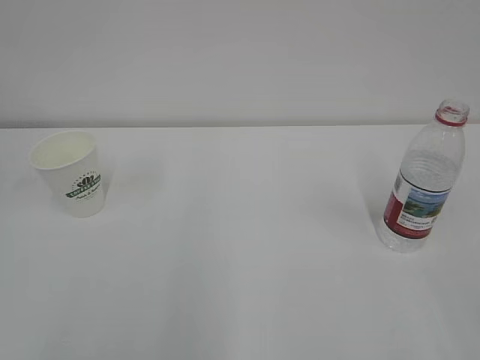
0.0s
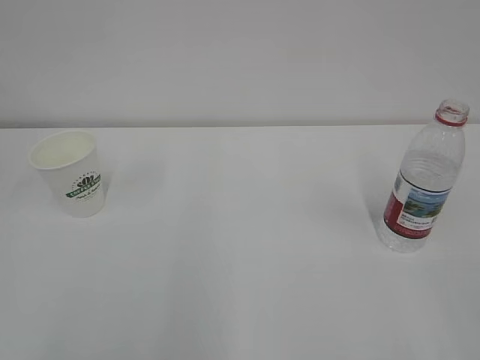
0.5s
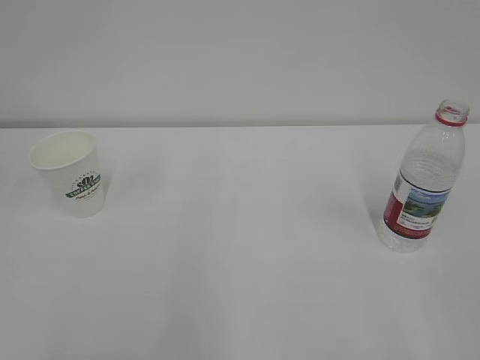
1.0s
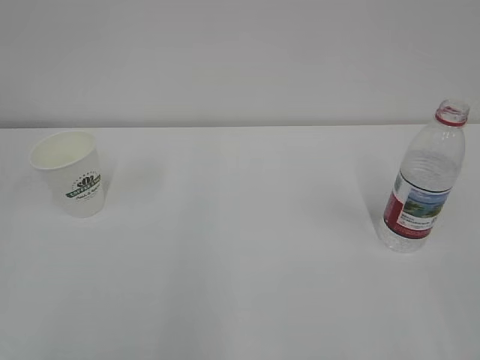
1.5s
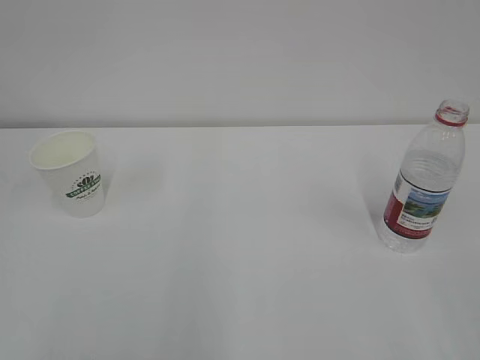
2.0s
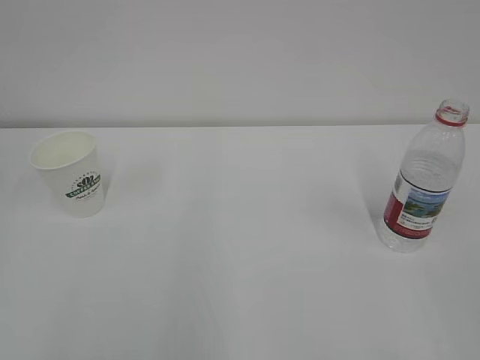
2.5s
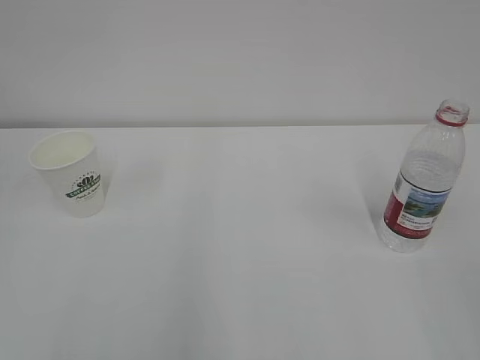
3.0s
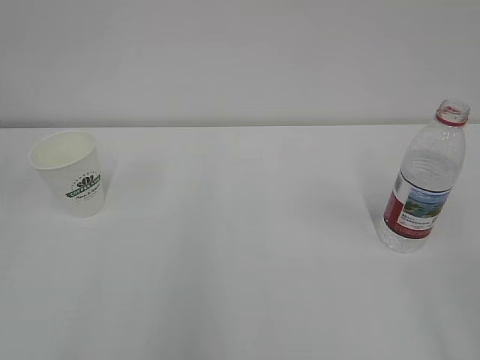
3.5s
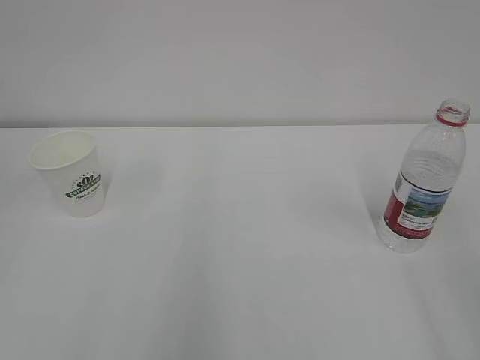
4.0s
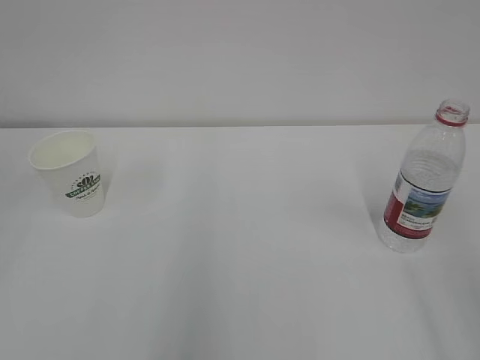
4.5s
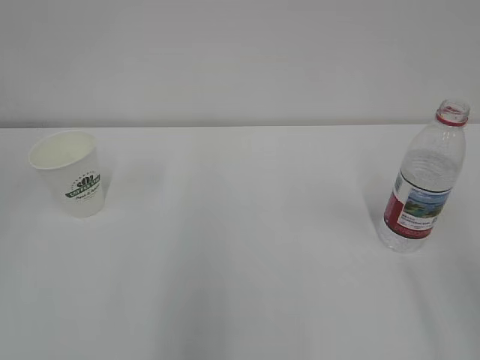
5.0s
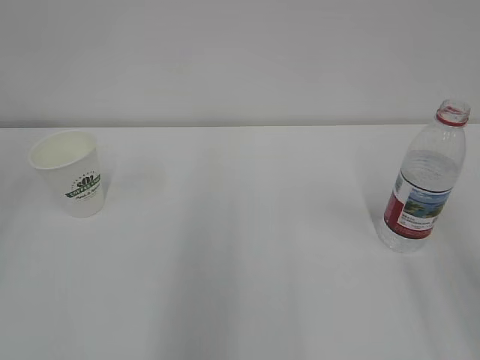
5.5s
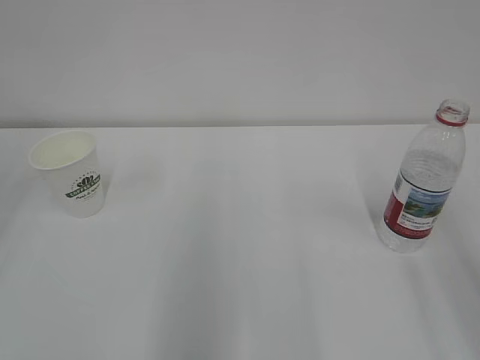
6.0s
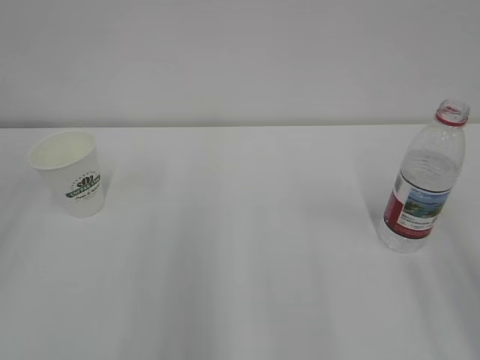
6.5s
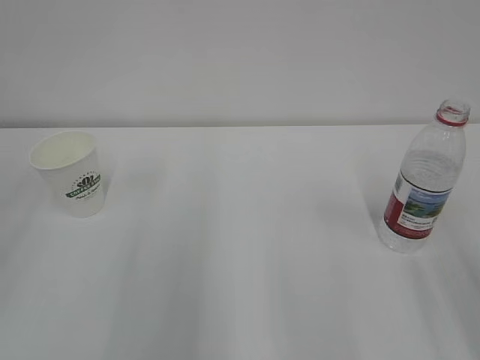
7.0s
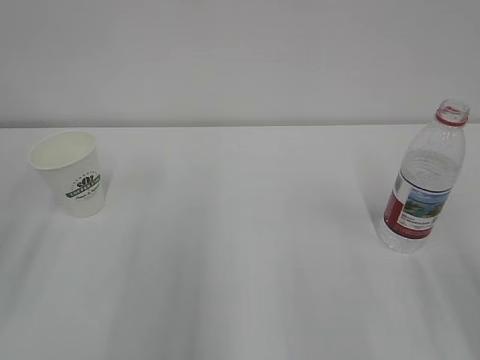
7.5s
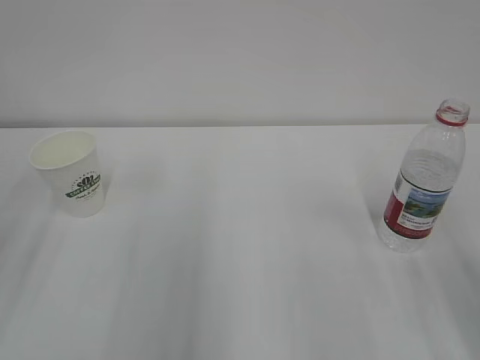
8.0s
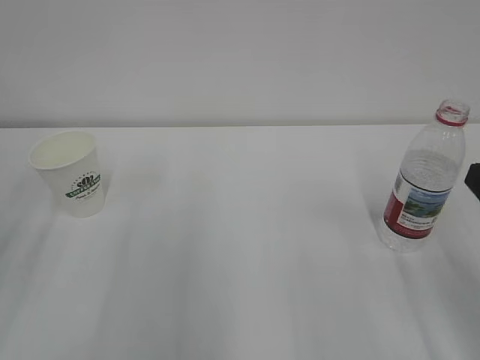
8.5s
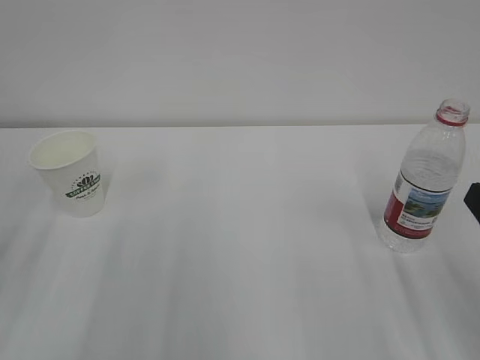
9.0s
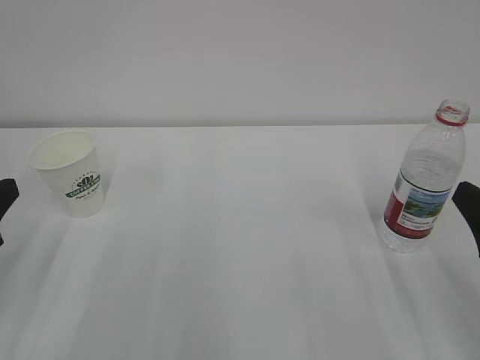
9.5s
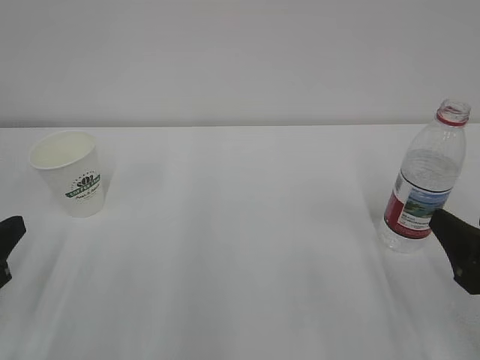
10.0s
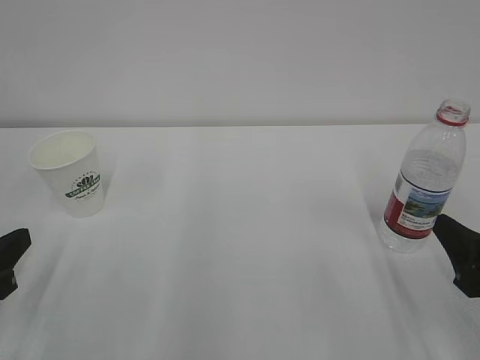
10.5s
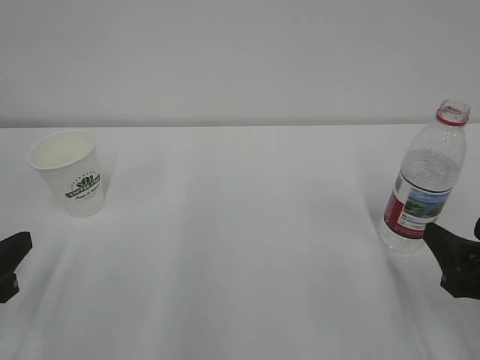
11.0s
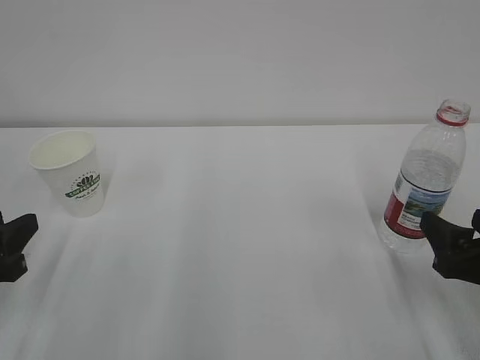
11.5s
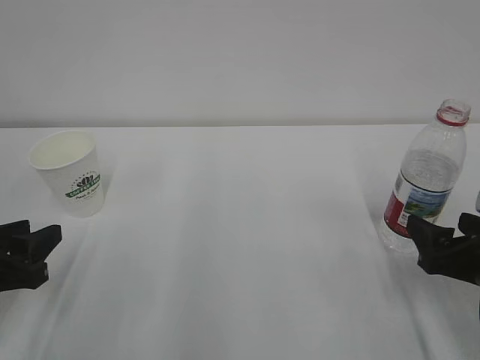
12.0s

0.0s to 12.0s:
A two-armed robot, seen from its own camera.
8.0s to 10.0s: The right gripper is displaced downward by roughly 10 cm.
10.0s to 12.0s: The right gripper travels forward by approximately 5 cm.

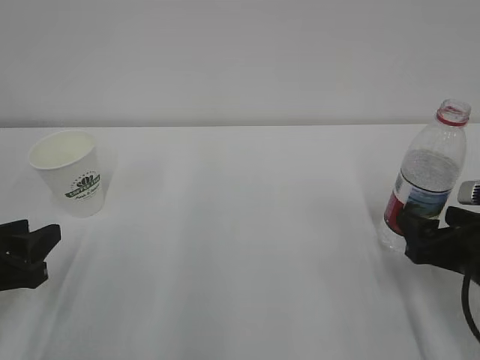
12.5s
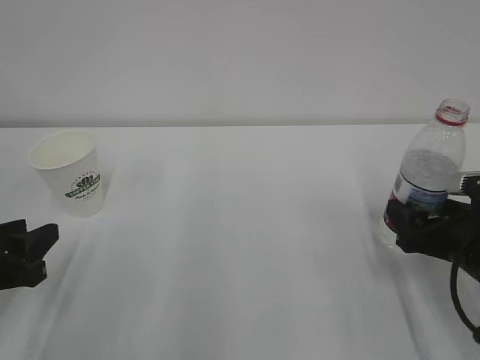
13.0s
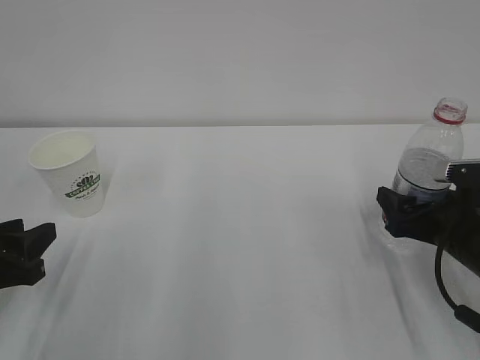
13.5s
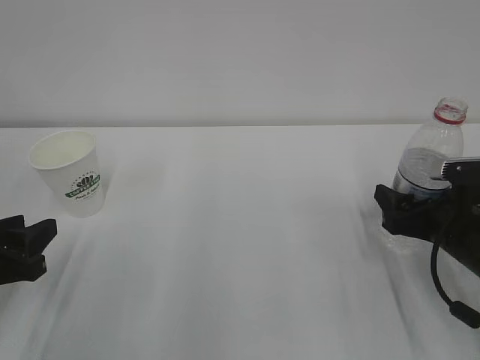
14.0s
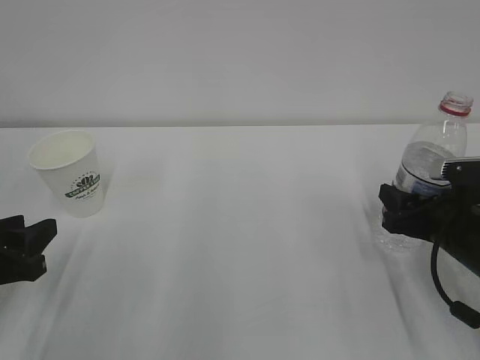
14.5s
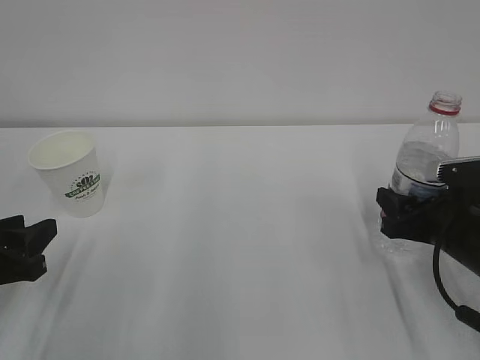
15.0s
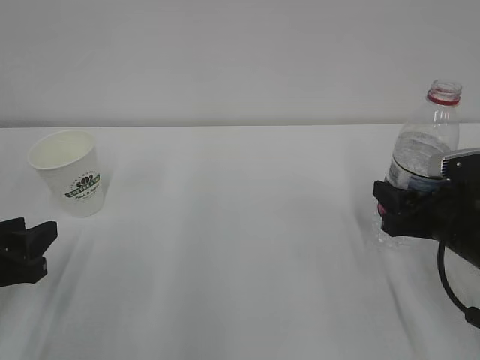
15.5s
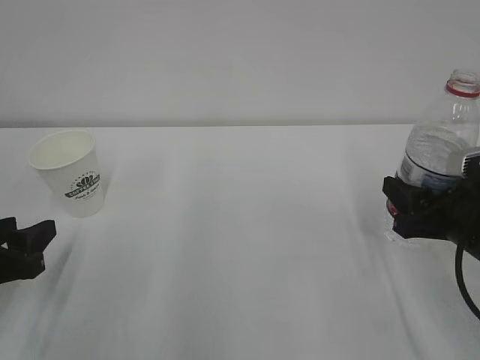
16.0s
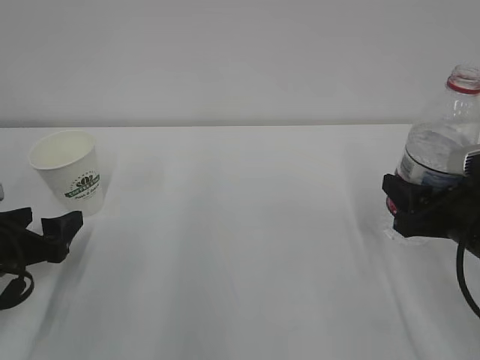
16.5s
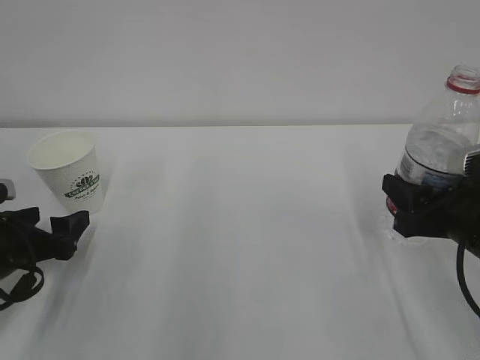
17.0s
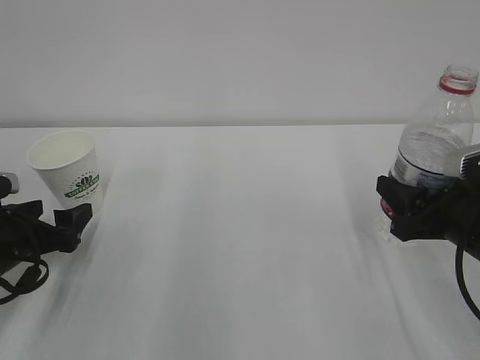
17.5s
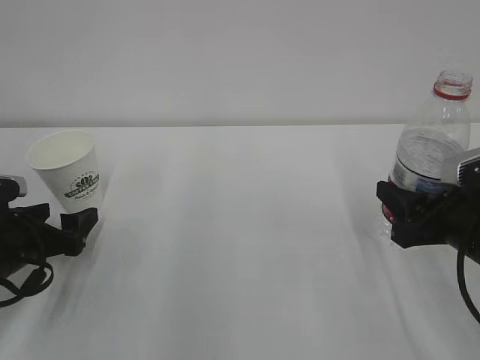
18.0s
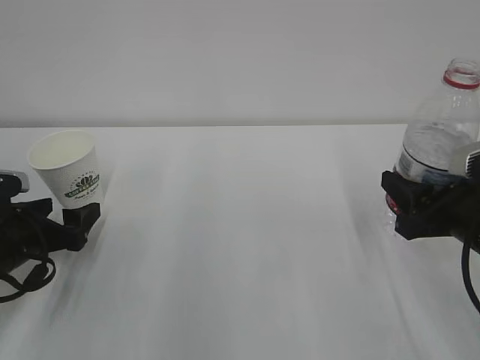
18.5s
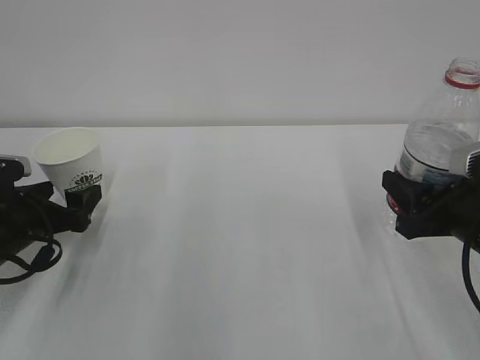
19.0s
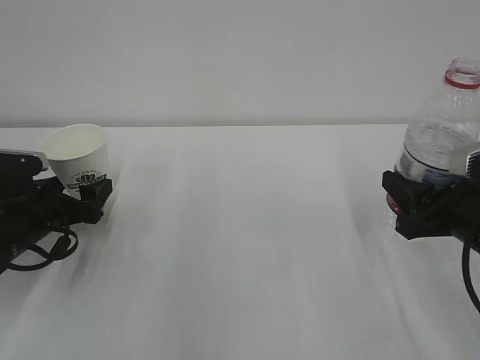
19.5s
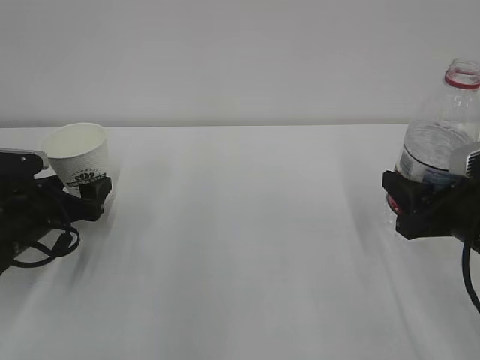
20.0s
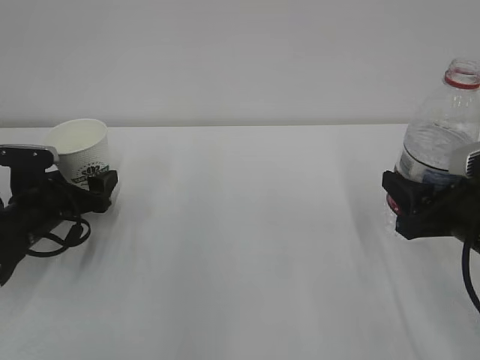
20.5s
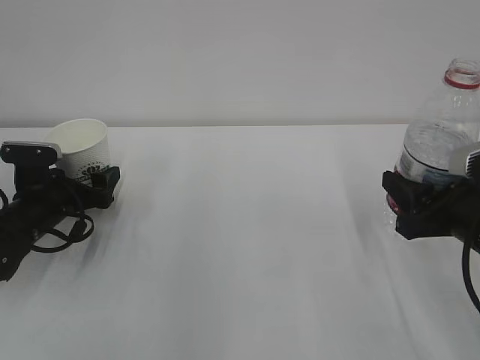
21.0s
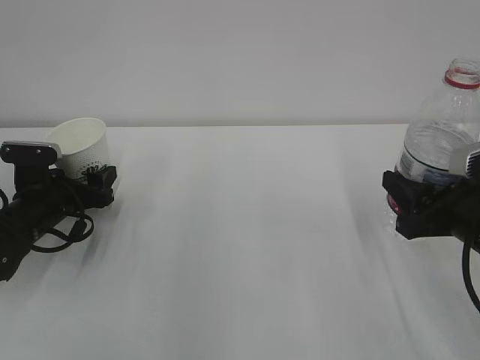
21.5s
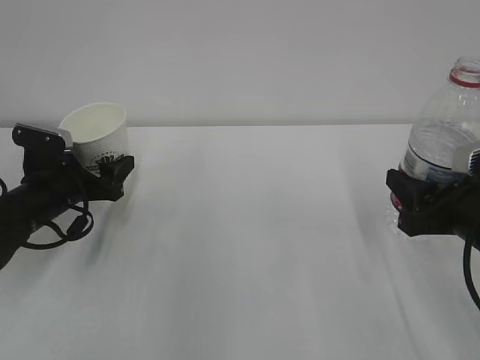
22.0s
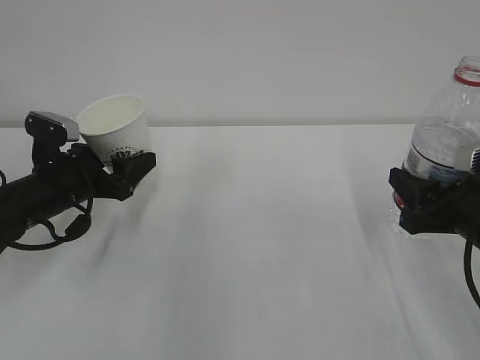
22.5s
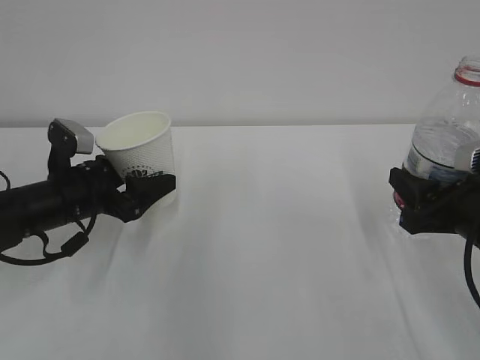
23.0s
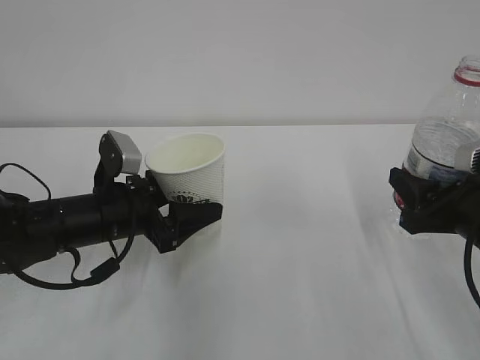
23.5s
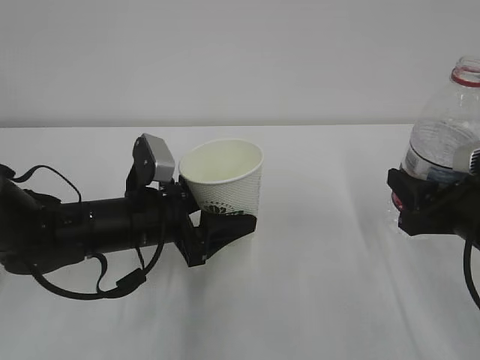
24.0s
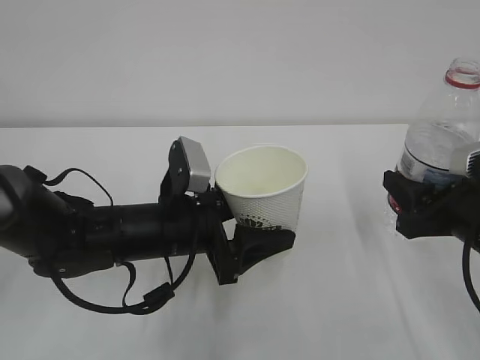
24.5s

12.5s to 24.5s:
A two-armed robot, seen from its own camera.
12.5s to 14.5s: The right gripper closes its fingers.
14.5s to 16.5s: The right gripper changes place by approximately 5 cm, while the left gripper opens its fingers.
16.5s to 18.5s: There are only small adjustments of the grippers.
18.5s to 20.5s: The left gripper moves forward, roughly 5 cm.
20.5s to 22.5s: The left gripper shifts by about 5 cm, and closes.
22.5s to 24.5s: The left gripper shifts roughly 15 cm to the right and backward.

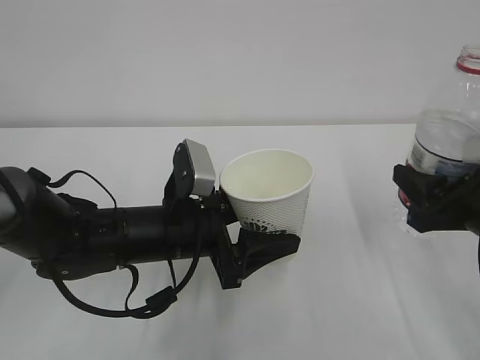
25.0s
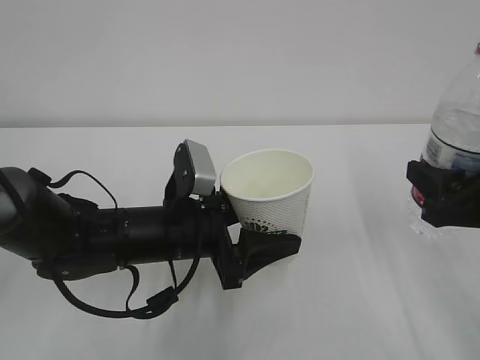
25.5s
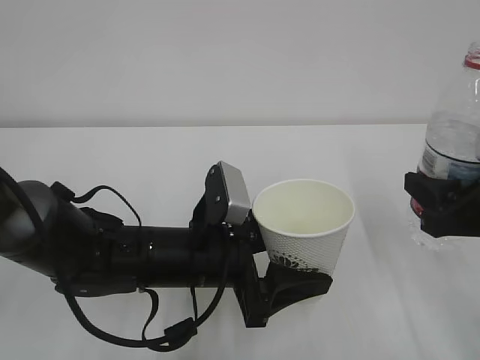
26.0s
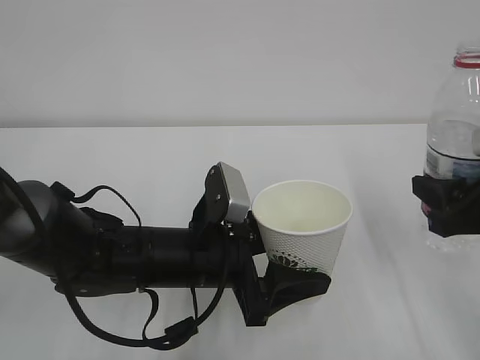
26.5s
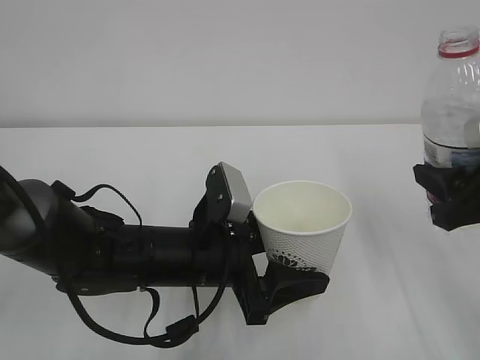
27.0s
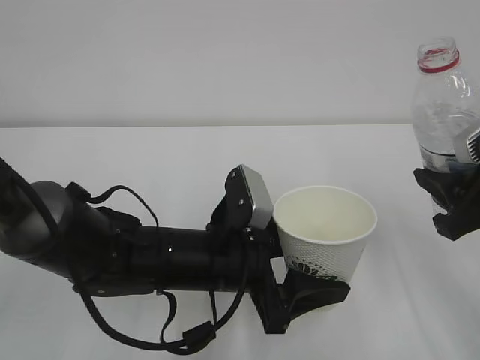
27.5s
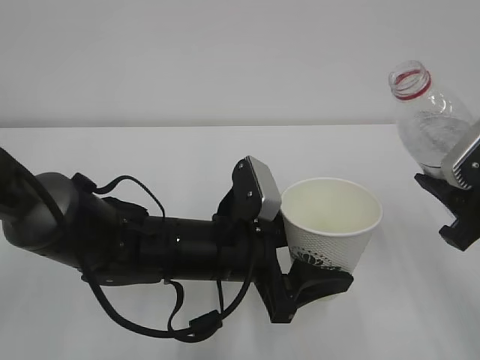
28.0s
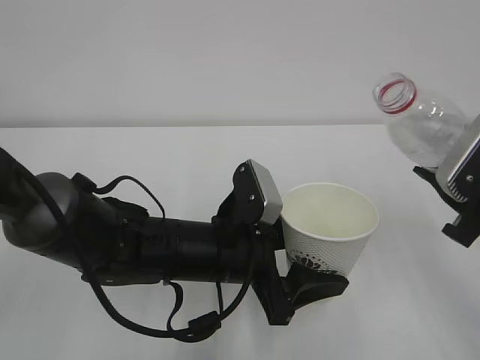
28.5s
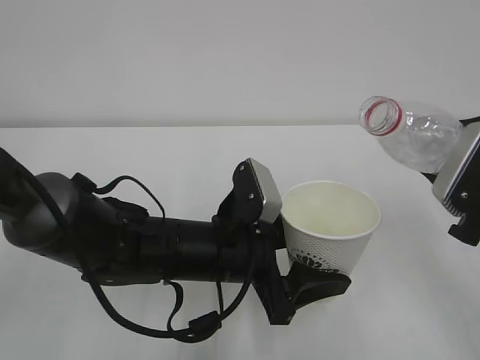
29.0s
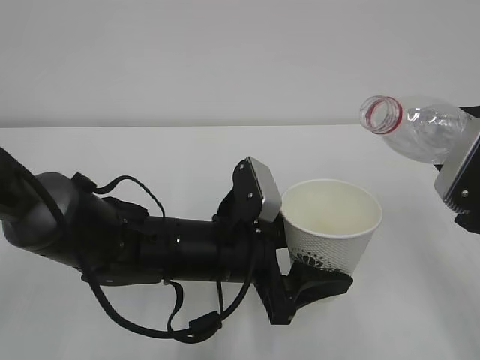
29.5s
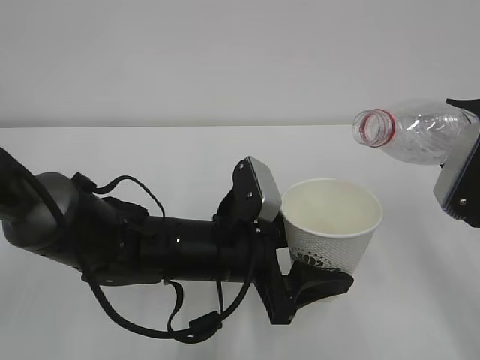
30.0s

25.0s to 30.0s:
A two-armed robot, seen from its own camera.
25.0s to 27.5s: The left gripper changes place by some 5 cm.
